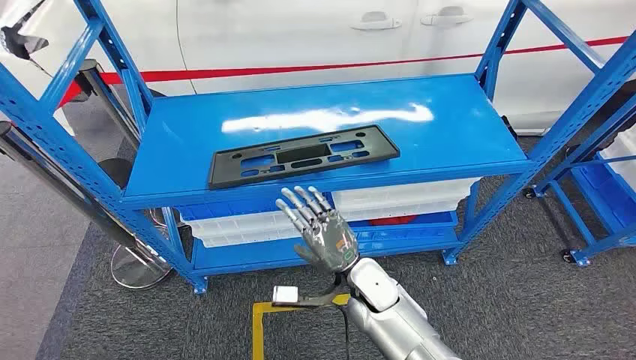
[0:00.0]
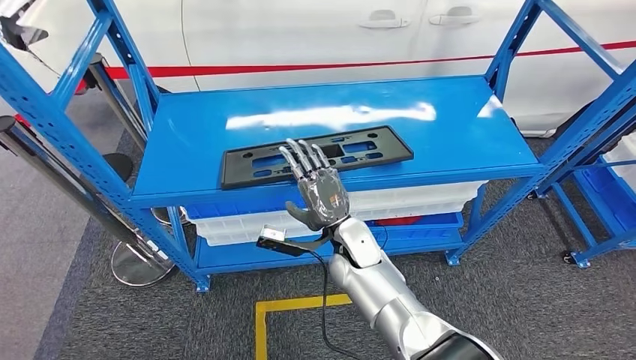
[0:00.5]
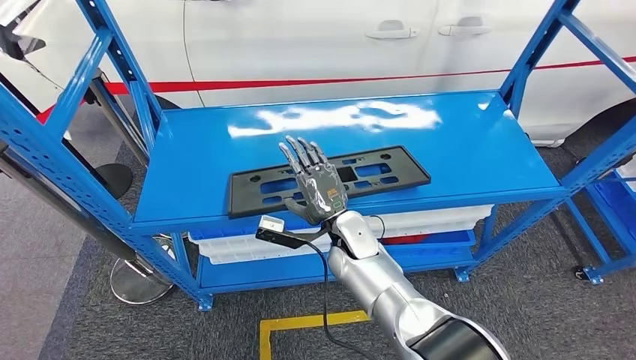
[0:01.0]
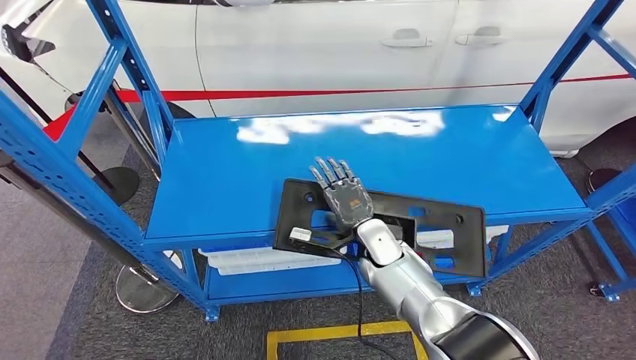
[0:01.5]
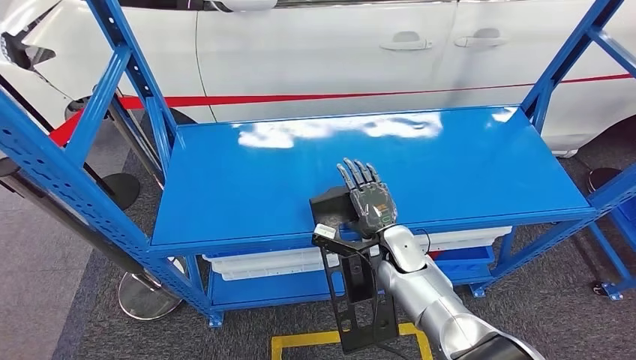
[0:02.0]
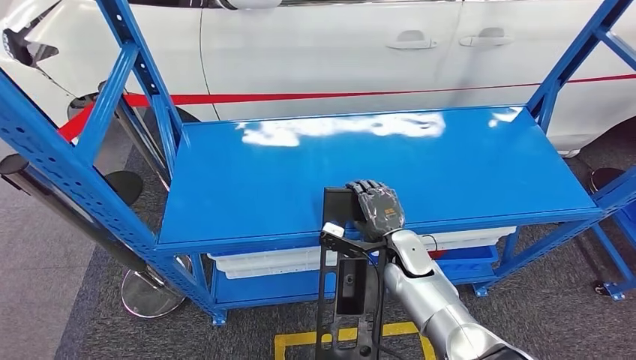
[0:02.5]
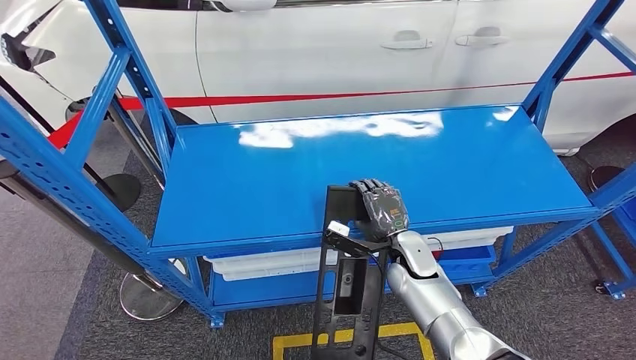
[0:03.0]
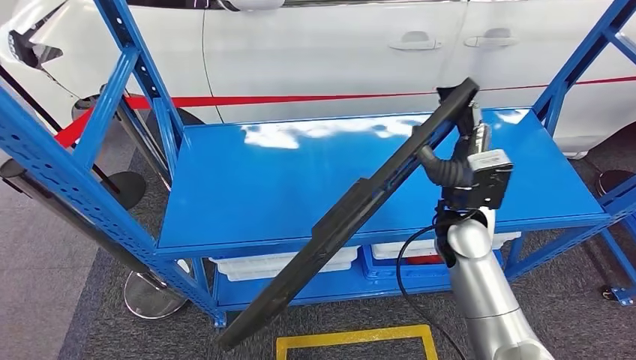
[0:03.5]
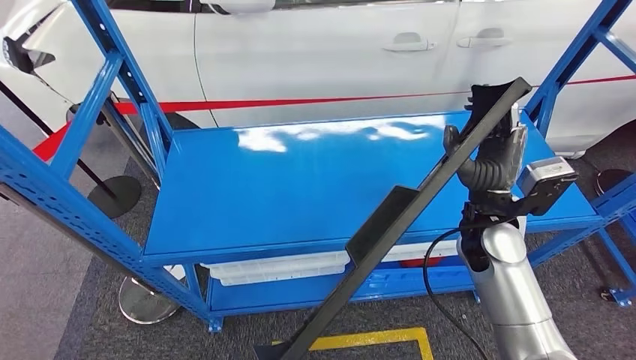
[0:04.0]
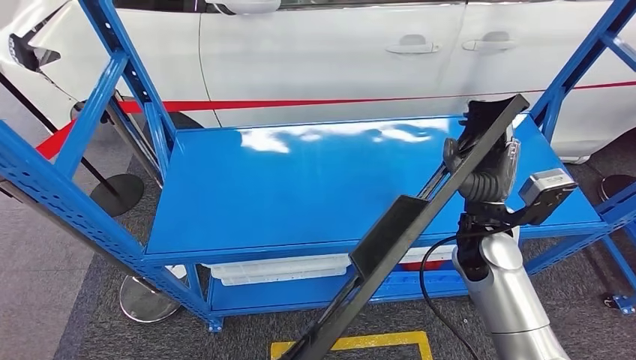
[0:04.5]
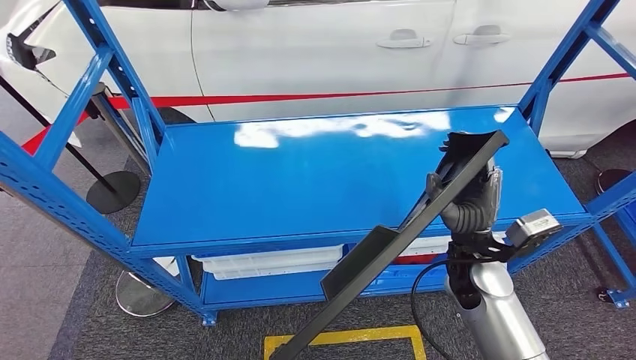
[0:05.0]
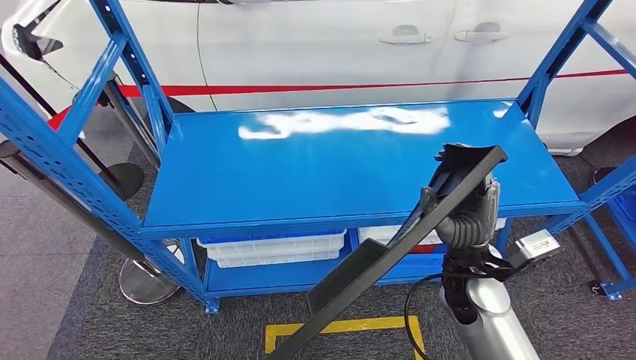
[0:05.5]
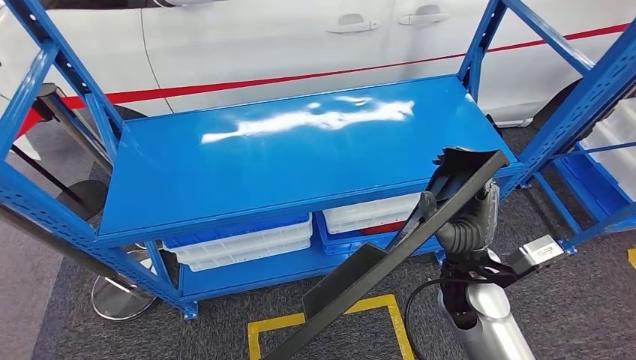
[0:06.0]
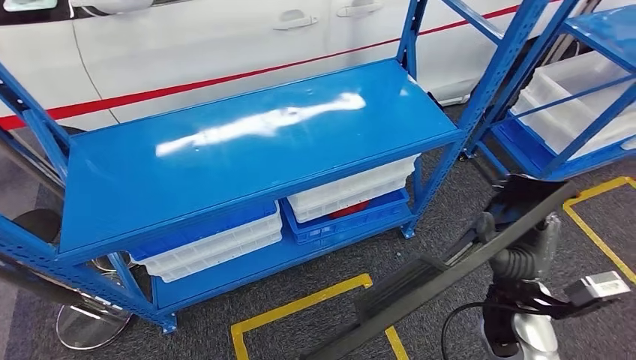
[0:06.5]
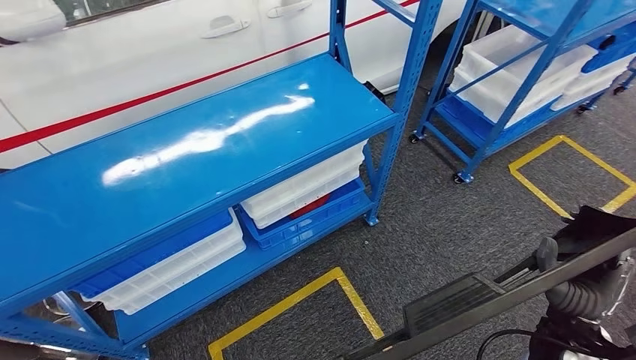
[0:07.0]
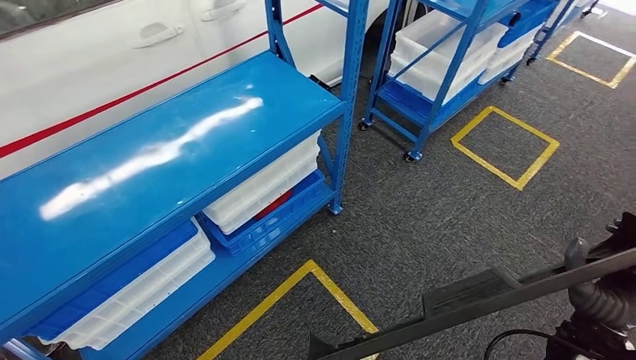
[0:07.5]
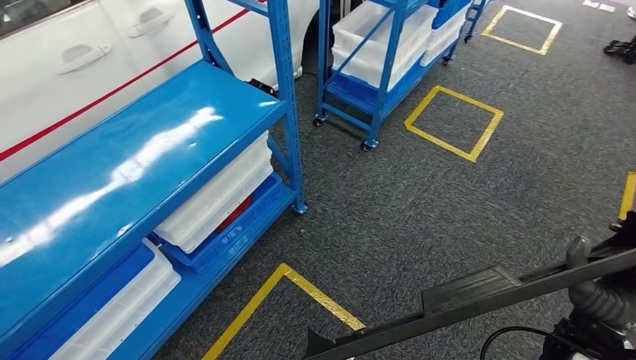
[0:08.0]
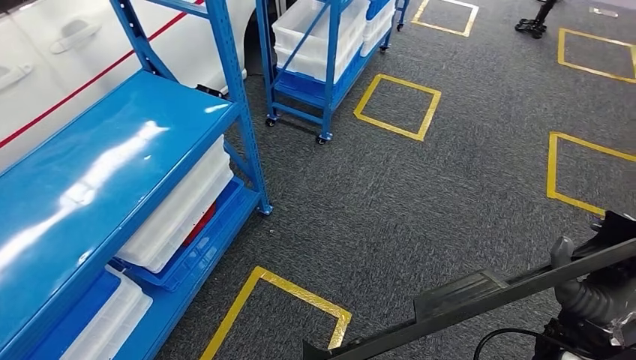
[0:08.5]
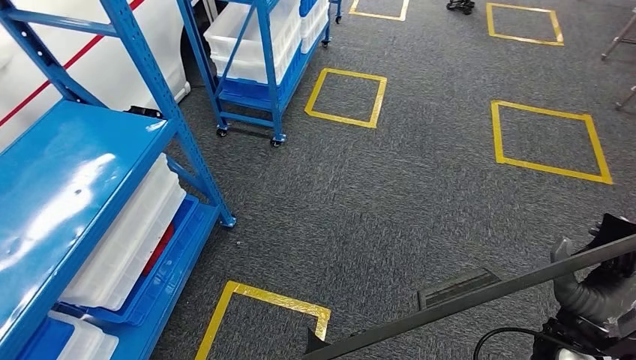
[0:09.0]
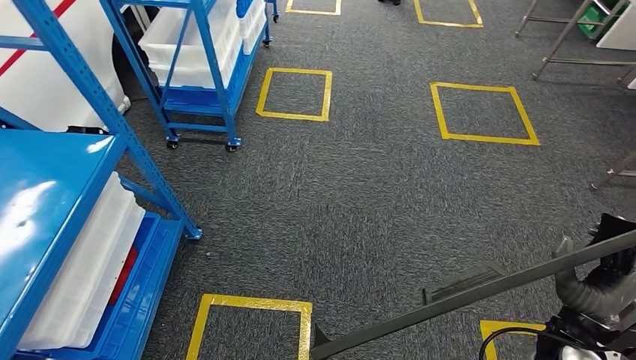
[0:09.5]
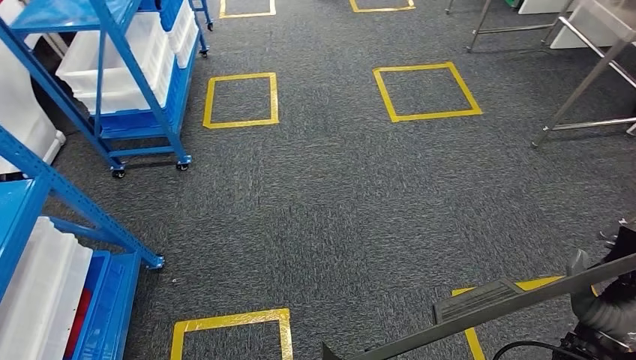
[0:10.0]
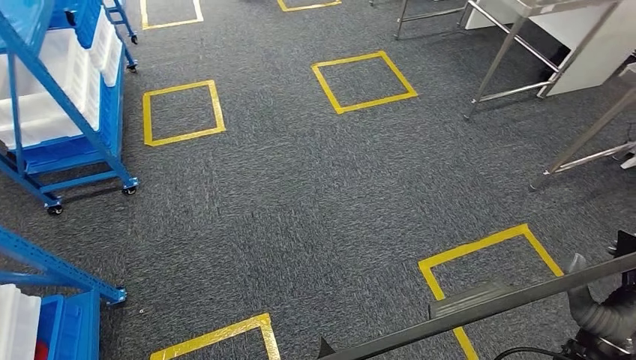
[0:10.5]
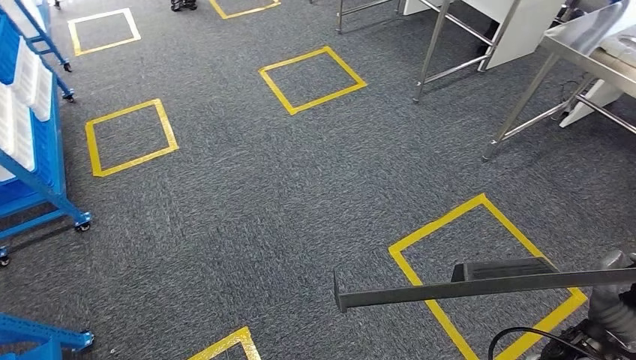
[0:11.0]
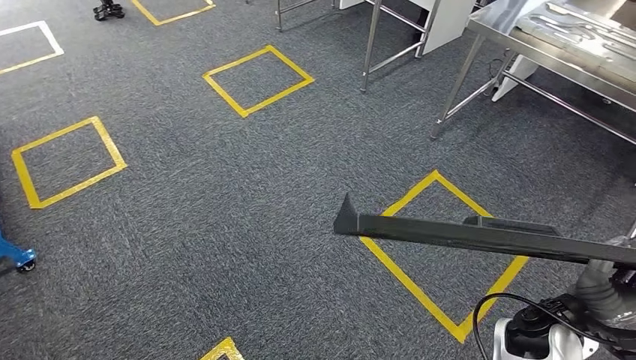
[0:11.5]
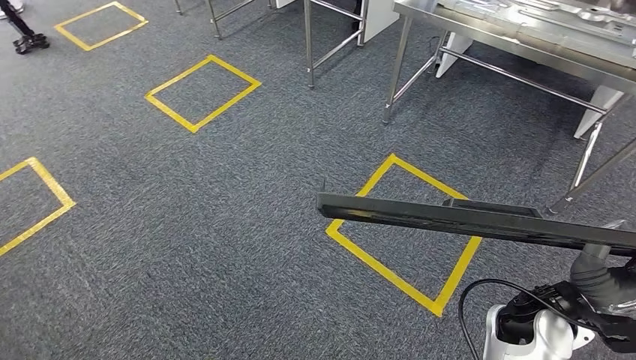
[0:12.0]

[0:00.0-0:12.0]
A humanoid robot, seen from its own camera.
Step, 0:00.0 to 0:03.5: Pick up the large material from the shelf.

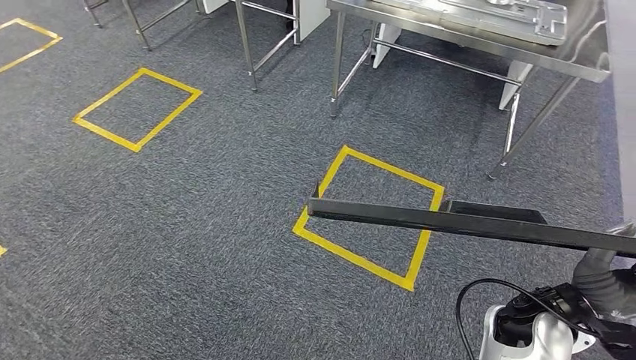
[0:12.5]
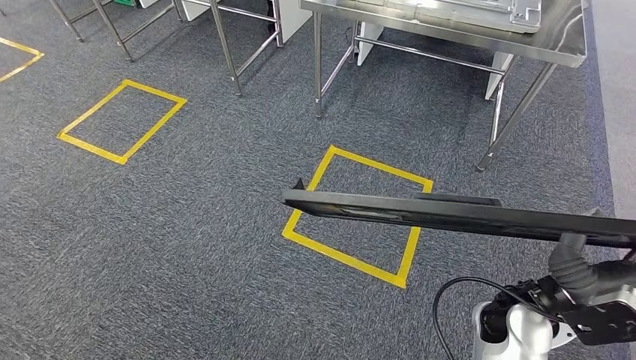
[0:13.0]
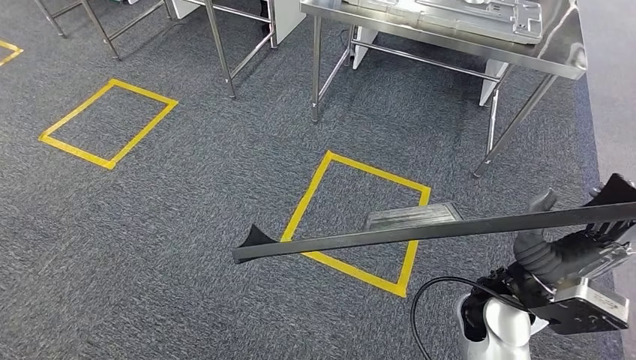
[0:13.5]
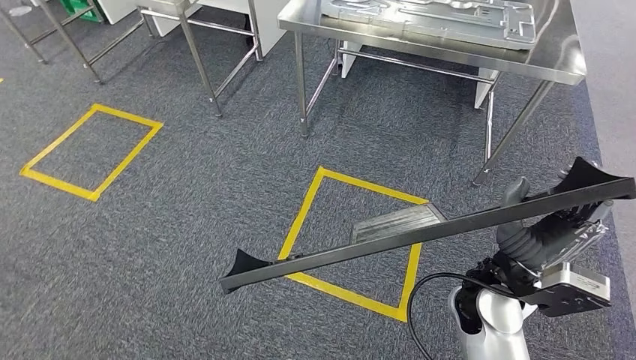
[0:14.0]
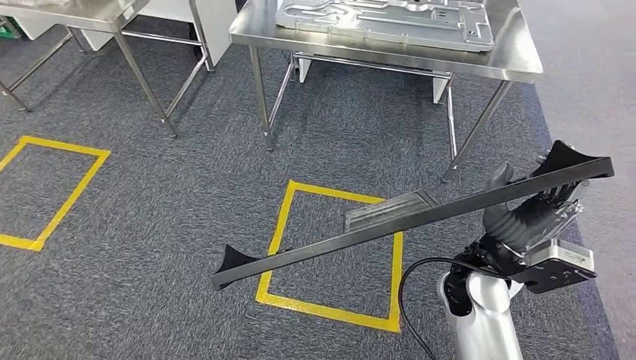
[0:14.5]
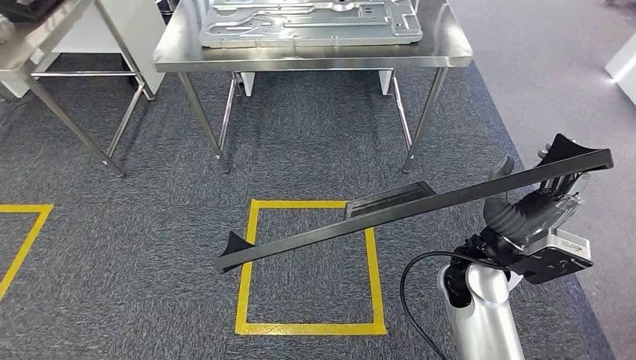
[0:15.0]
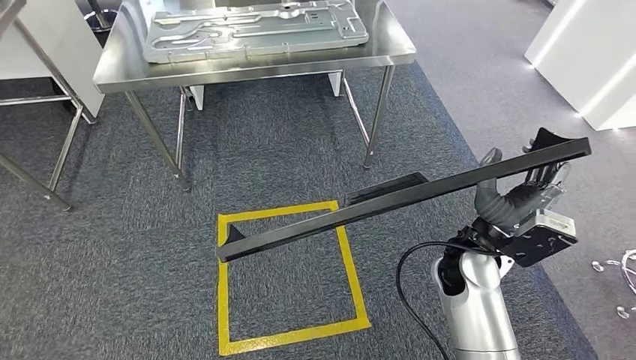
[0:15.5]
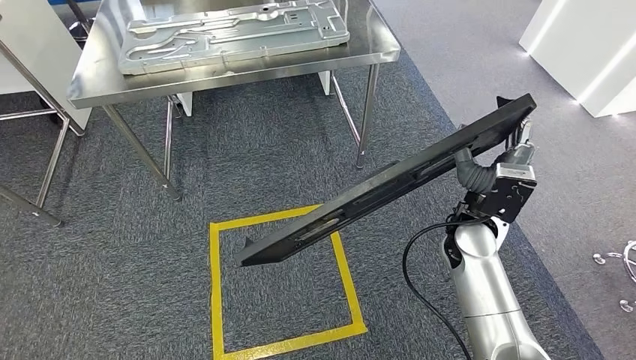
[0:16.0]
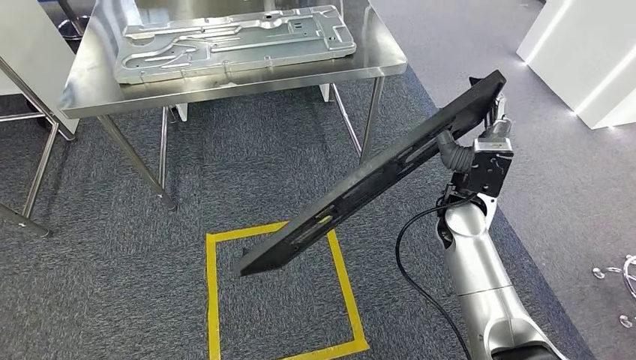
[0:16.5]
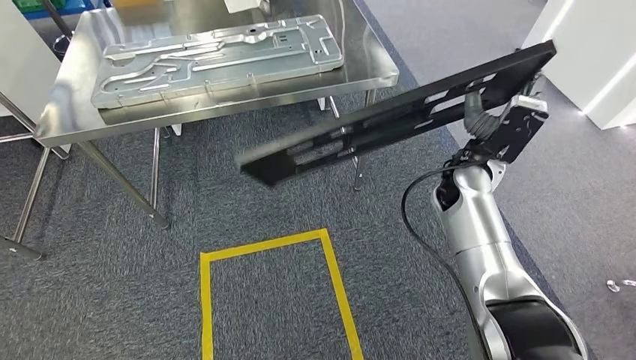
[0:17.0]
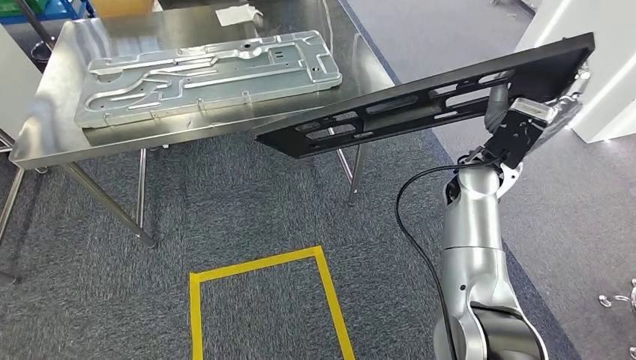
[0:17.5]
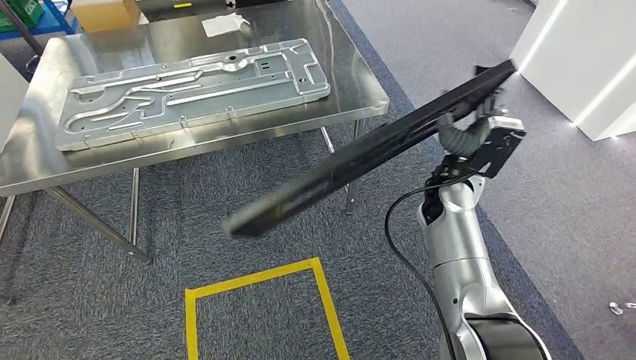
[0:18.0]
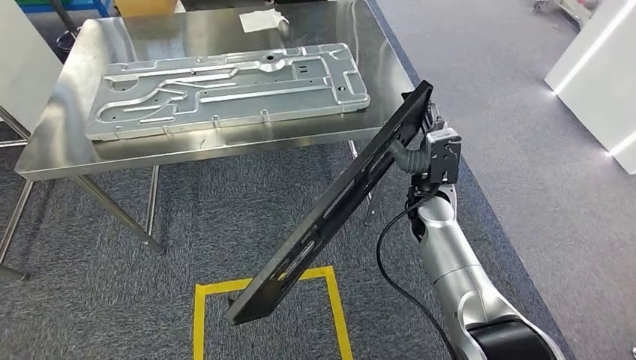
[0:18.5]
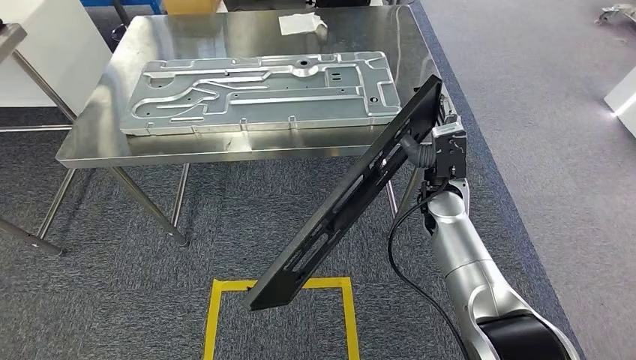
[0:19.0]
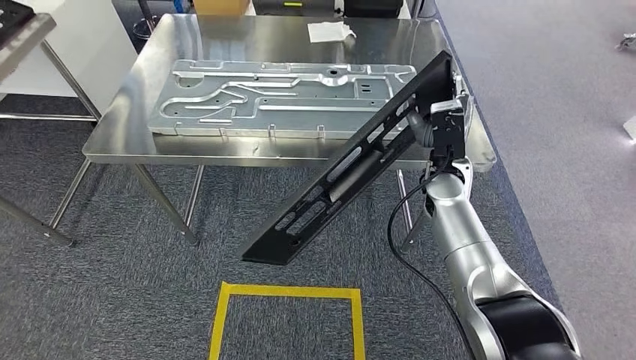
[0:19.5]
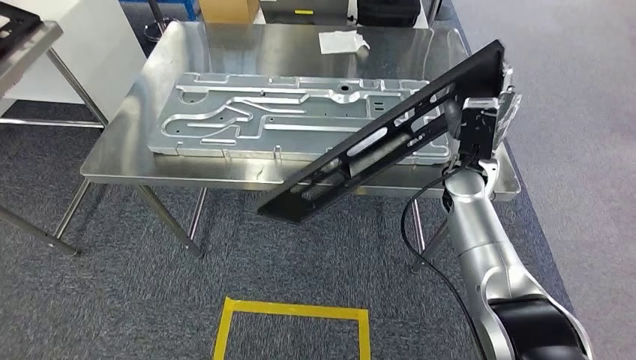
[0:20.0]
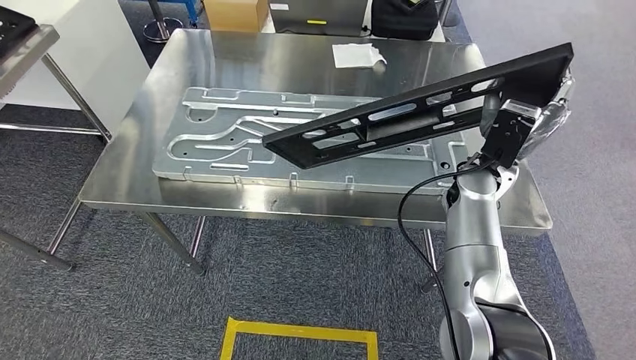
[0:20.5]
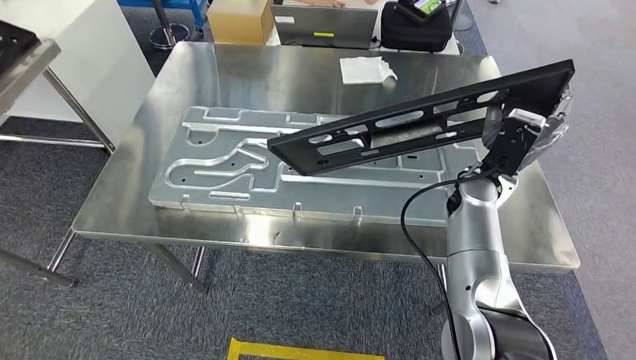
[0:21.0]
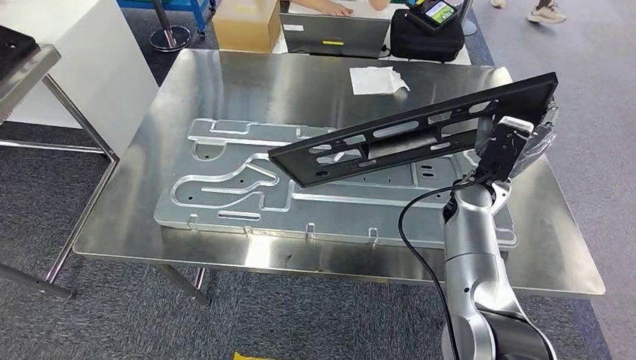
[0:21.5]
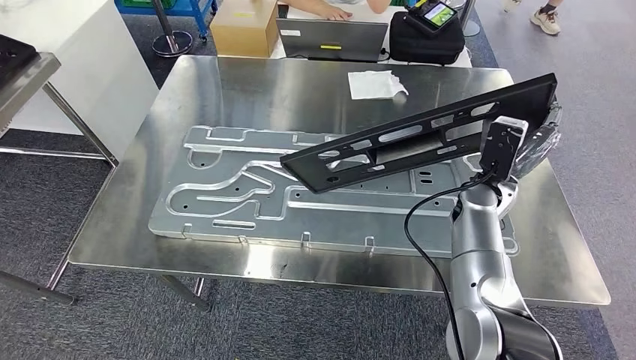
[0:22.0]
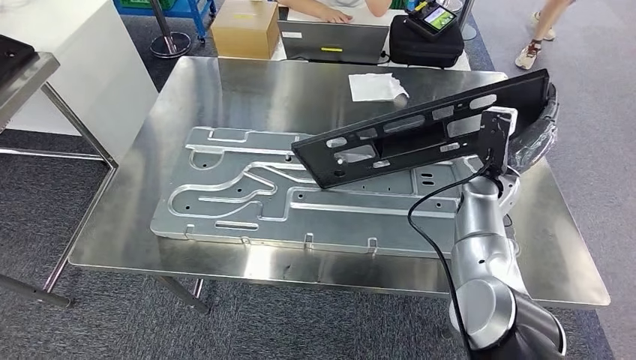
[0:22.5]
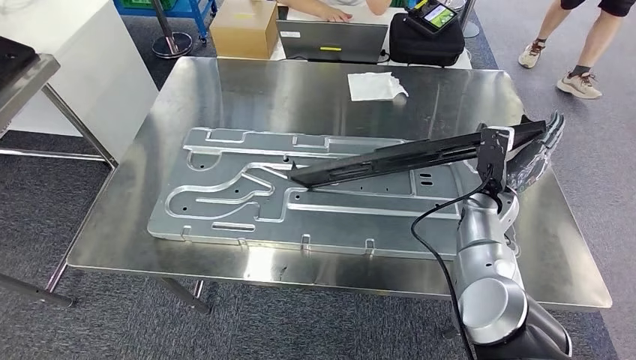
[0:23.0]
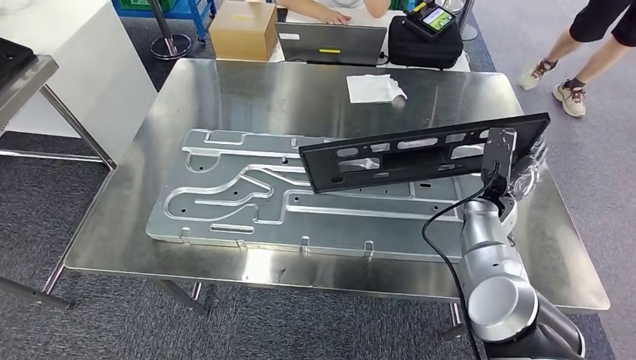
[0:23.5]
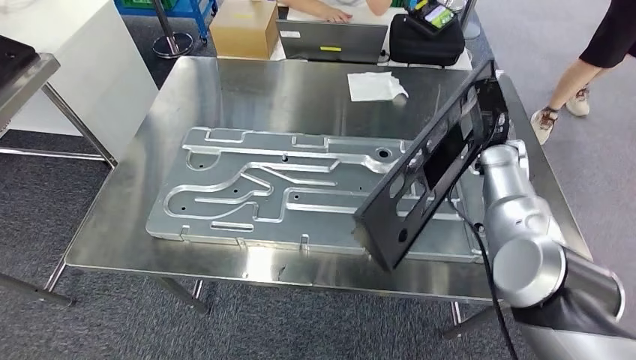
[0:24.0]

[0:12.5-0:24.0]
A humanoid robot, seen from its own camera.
Step, 0:12.5 to 0:16.0: Move the large material to the workbench.
Step, 0:18.0 to 0:23.5: Insert the large material into the corresponding slot on the workbench.
